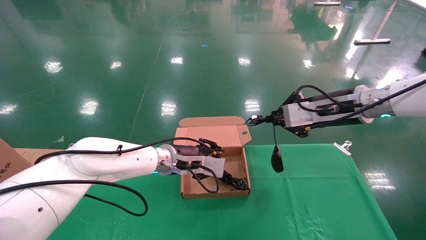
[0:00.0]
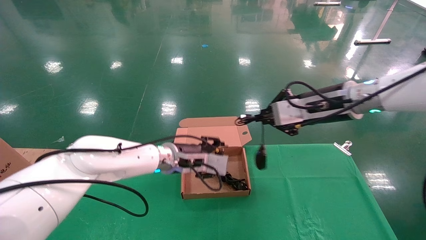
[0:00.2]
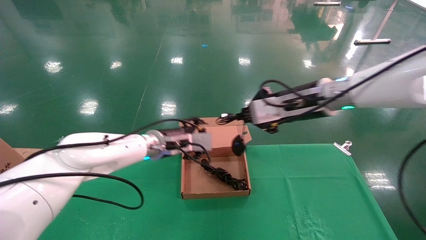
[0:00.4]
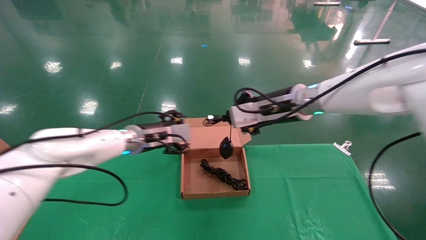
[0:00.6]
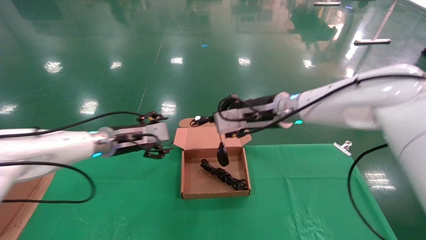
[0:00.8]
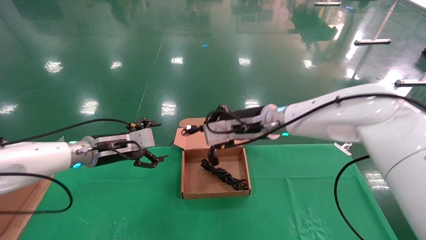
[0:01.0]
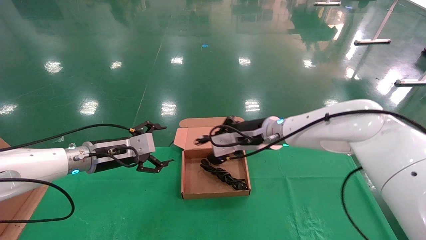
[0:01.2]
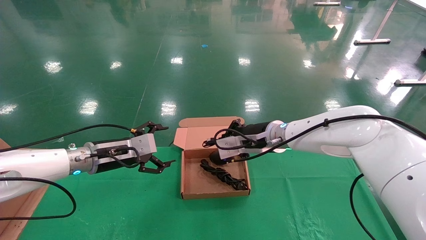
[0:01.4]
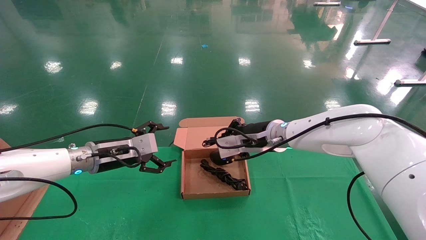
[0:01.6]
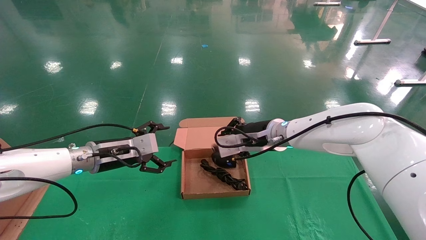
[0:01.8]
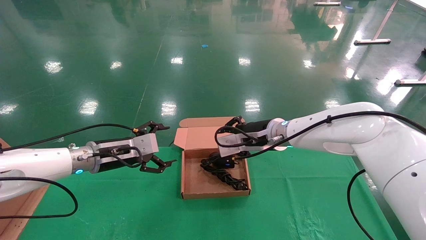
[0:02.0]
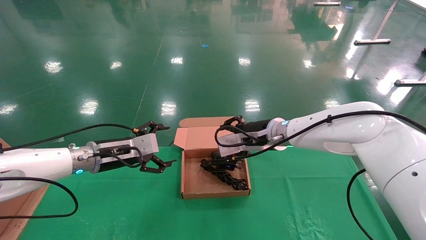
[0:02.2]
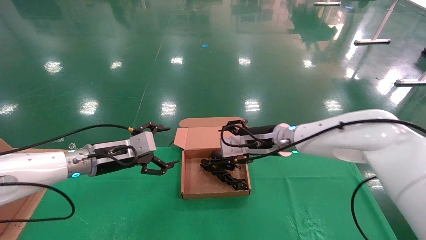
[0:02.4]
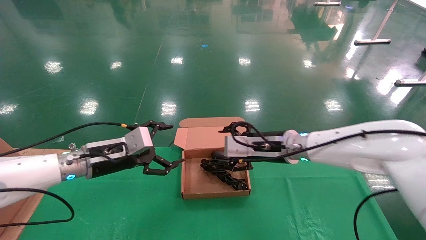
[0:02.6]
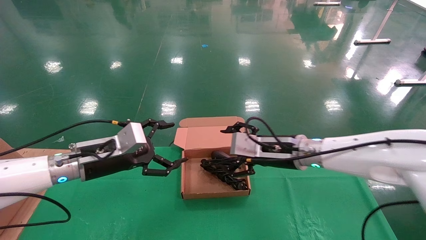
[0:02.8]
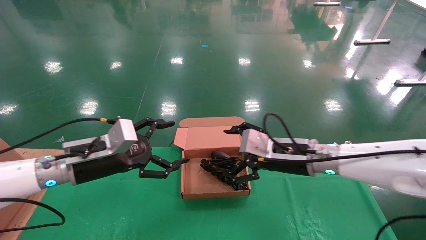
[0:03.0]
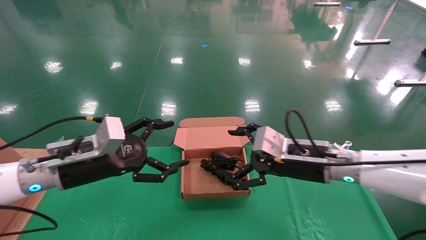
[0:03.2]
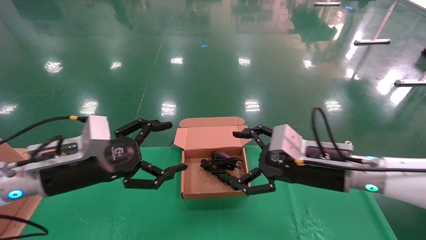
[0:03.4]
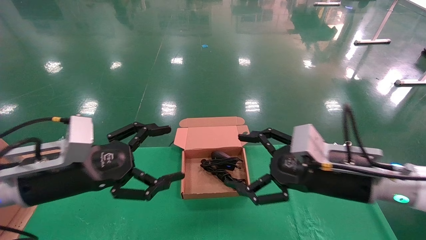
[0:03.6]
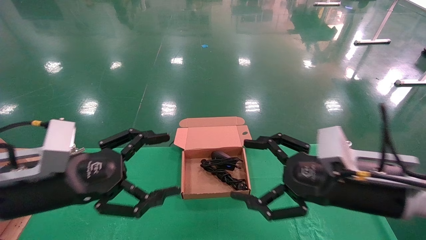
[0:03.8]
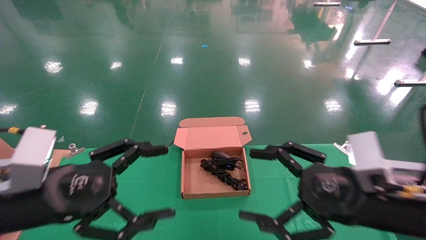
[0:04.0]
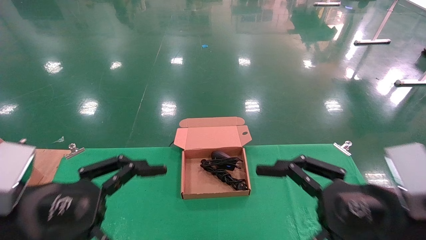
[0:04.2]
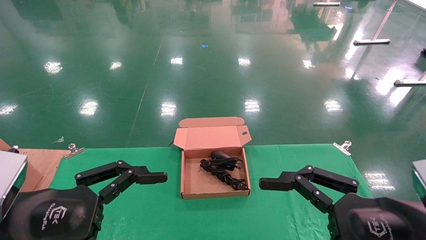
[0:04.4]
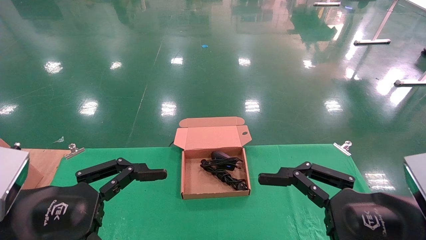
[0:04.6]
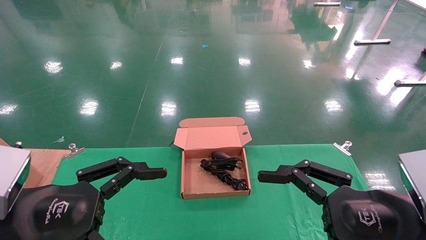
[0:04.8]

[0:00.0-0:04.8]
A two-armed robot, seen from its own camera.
Step, 0:00.0 to 0:03.0: Place the mouse and power cord into the box.
0:00.0 to 0:01.6: The left gripper travels to the left by some 15 cm, and opens its fingers. Meanwhile the right gripper is displaced to the left, downward and forward by roughly 20 cm.
0:01.6 to 0:03.2: The right gripper moves backward and to the right, about 15 cm, and opens up; the left gripper heads backward, covering some 10 cm.
0:03.2 to 0:04.8: Both grippers travel together backward, approximately 15 cm.
